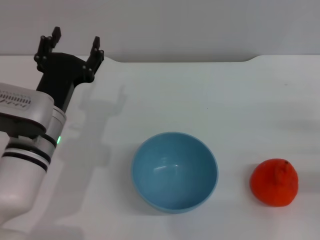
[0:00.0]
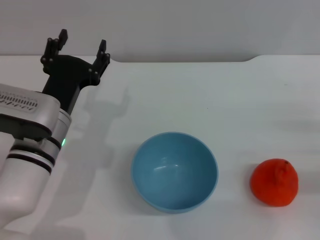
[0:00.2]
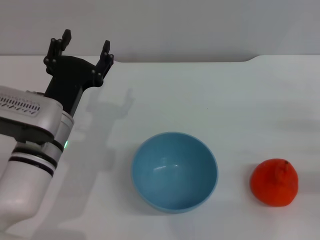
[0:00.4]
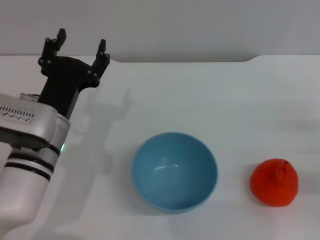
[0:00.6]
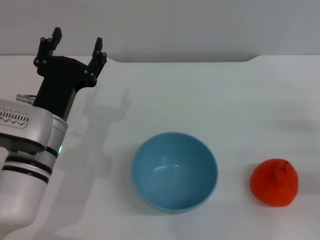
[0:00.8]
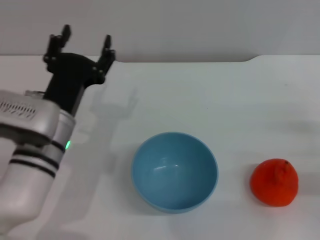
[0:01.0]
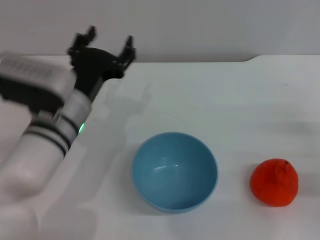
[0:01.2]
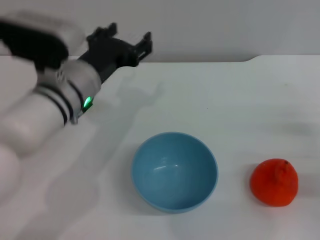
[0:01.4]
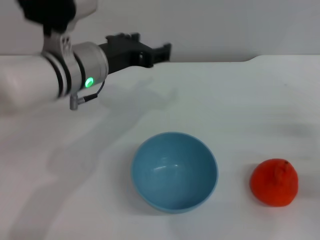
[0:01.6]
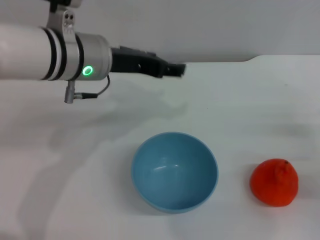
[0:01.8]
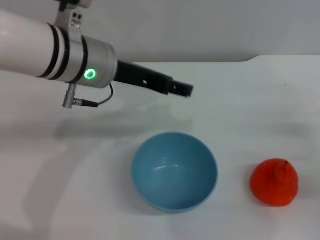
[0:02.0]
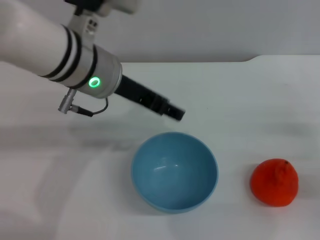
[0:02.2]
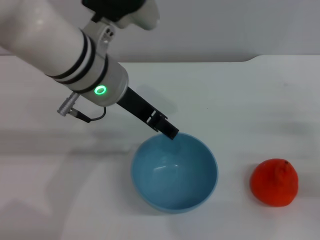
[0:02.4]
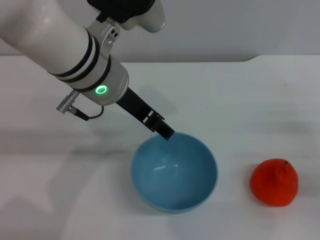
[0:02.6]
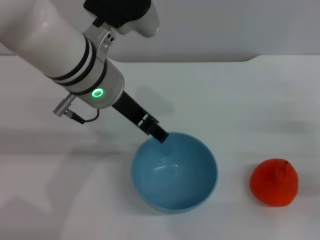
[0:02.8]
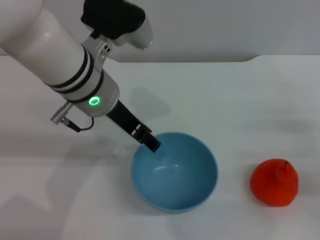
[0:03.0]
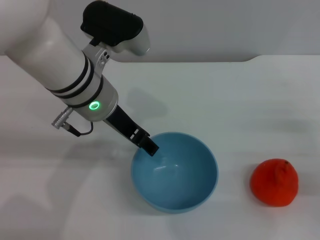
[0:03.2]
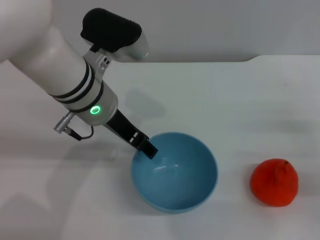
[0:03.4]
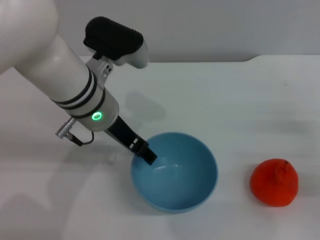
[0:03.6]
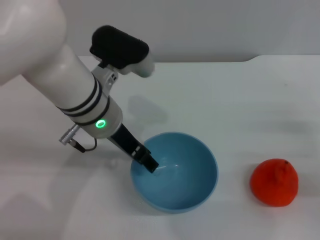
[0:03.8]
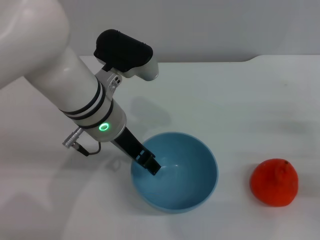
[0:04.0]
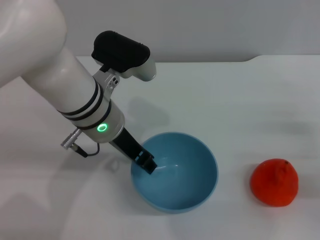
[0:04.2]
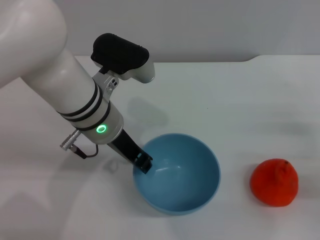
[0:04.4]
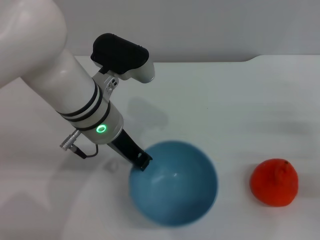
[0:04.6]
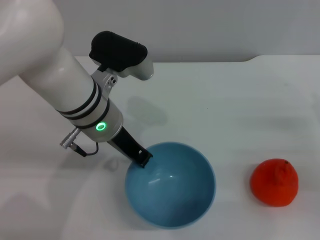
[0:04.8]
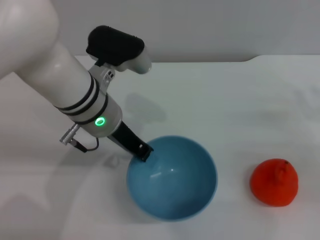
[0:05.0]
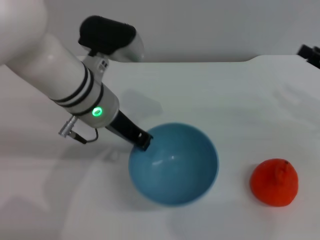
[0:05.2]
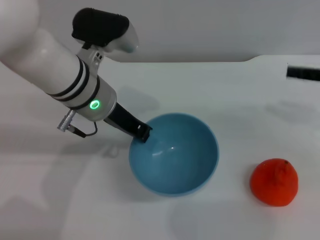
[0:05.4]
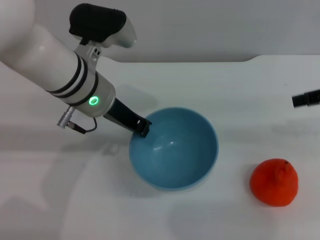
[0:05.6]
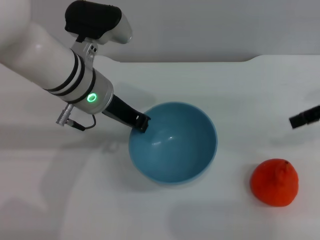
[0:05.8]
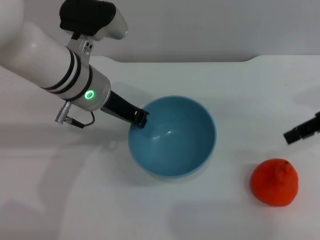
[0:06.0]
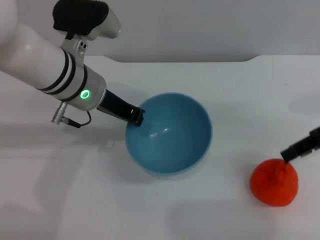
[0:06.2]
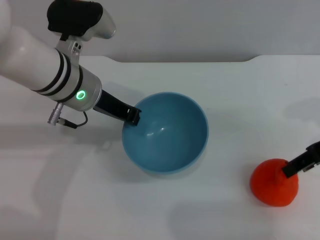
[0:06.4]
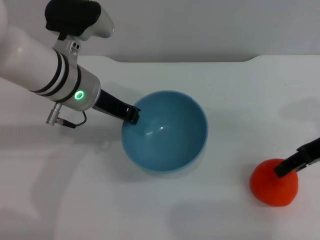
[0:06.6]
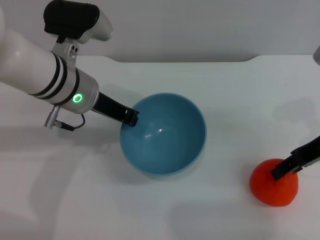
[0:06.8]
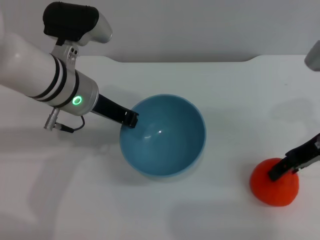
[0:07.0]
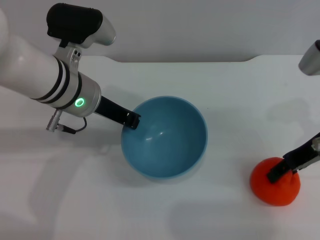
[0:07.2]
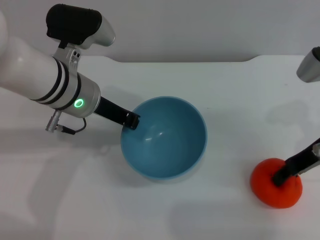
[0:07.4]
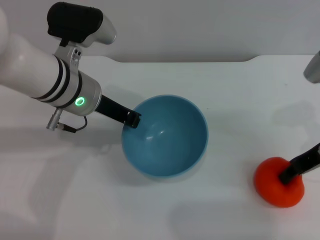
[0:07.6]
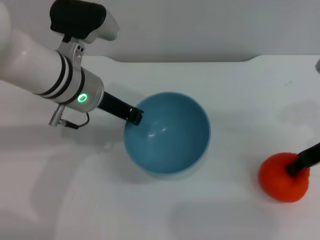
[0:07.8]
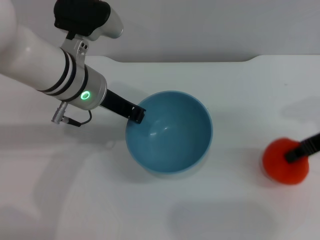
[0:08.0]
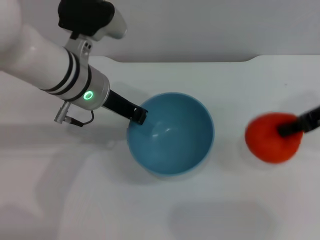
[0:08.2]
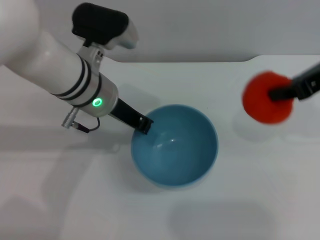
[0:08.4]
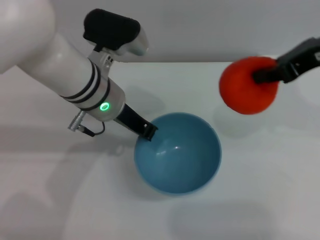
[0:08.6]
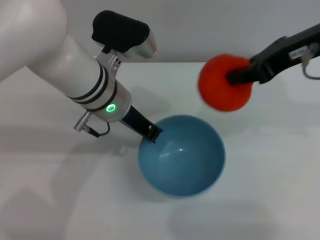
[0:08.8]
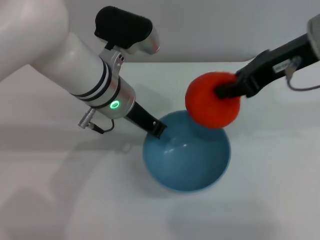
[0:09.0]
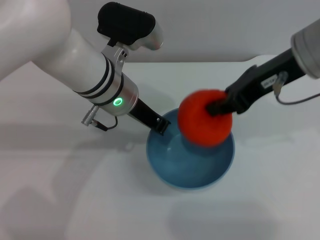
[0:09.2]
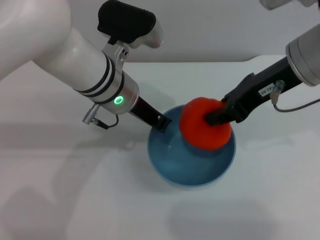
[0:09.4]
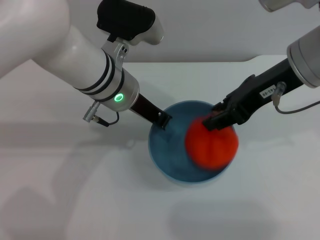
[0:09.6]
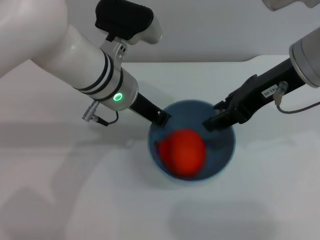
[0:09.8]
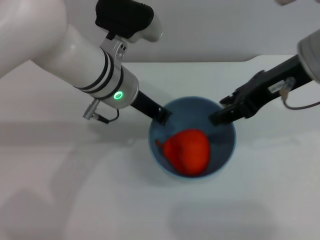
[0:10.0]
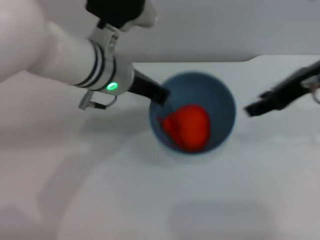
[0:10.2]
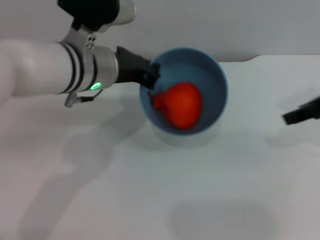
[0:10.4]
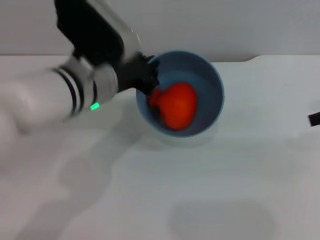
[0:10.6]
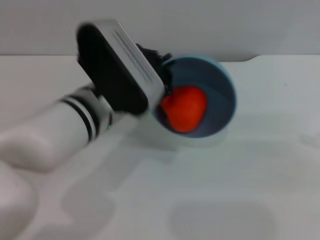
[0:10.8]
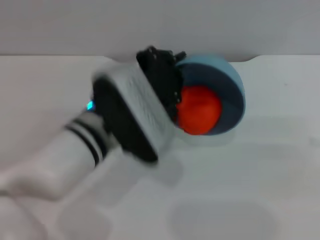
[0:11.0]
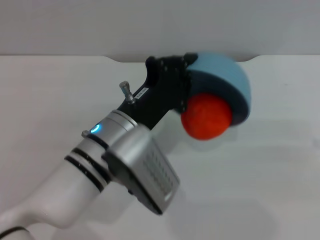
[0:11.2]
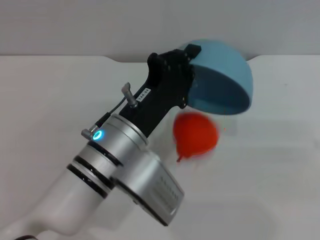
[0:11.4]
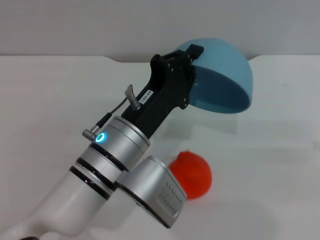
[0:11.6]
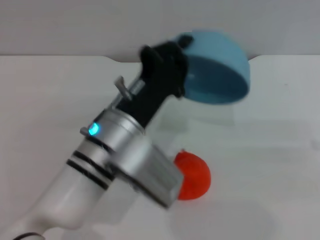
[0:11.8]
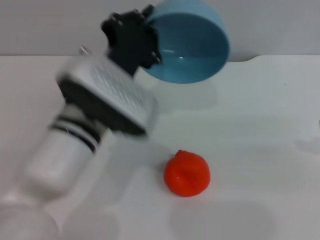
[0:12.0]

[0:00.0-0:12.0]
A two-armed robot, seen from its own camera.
Task of the whole recording: put the orange into the blue bowl and pour it out repeatedly.
Step, 0:00.0 to 0:05.2: Pick up the bowl with the left gripper.
Step, 0:05.6 to 0:08.0: Pick up the orange with the right gripper.
Step, 0:08.4 to 0:09.6: Place the orange into the bowl.
0:00.0 to 0:01.6: The left gripper shifts approximately 10 cm upward and forward.
0:03.0 to 0:04.4: The left gripper closes its fingers.
0:04.4 to 0:06.0: The right gripper shifts approximately 20 cm upward and forward. Meanwhile the left gripper closes its fingers.
0:06.0 to 0:07.6: The right gripper travels downward by roughly 10 cm.
0:07.6 to 0:09.0: The right gripper travels upward and to the left by about 15 cm, and closes up.
0:09.0 to 0:10.4: The right gripper shifts about 5 cm to the right, and opens up.
0:10.4 to 0:12.0: The left gripper moves backward, some 5 cm. Meanwhile the right gripper moves to the right, some 10 cm.

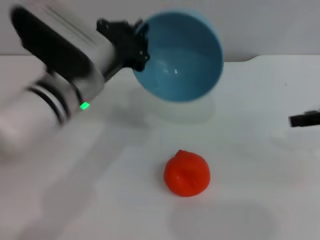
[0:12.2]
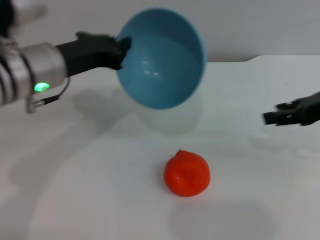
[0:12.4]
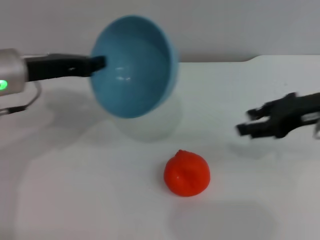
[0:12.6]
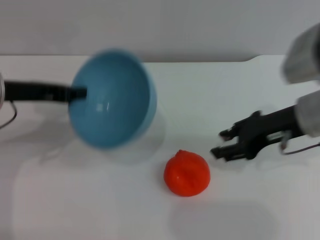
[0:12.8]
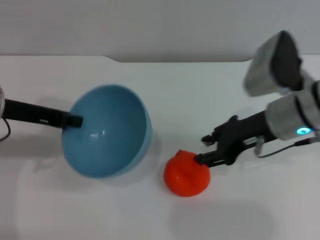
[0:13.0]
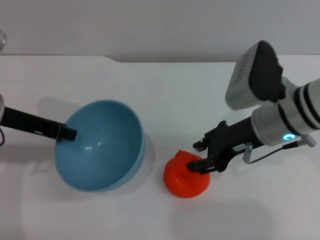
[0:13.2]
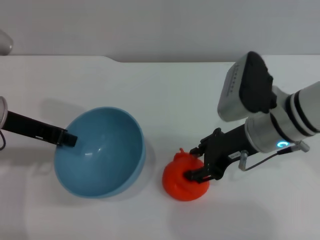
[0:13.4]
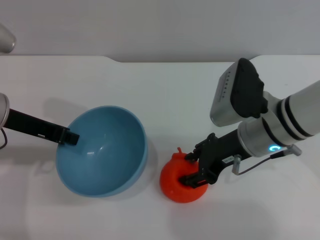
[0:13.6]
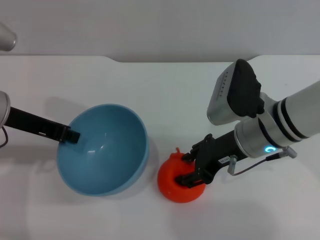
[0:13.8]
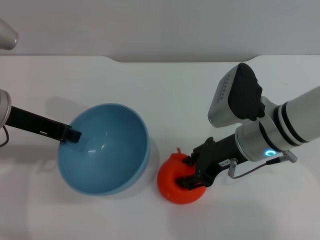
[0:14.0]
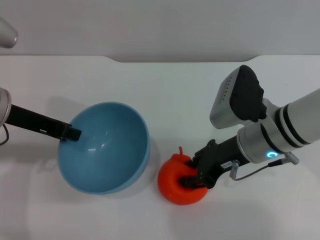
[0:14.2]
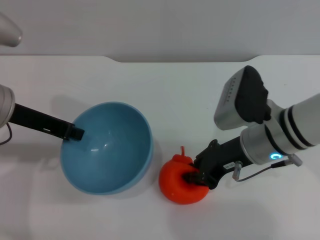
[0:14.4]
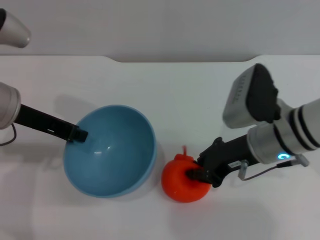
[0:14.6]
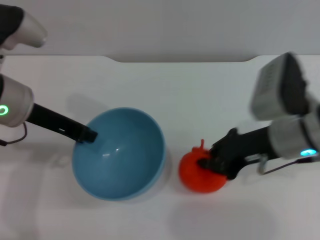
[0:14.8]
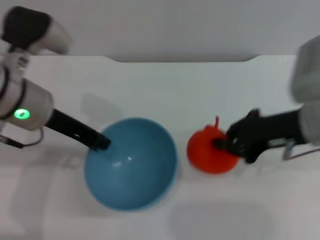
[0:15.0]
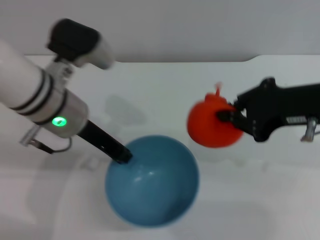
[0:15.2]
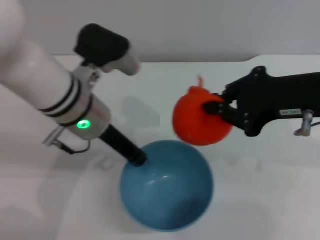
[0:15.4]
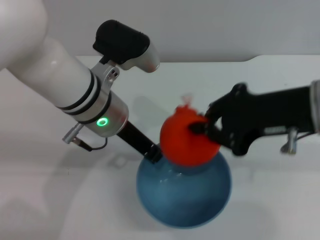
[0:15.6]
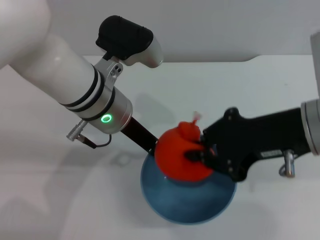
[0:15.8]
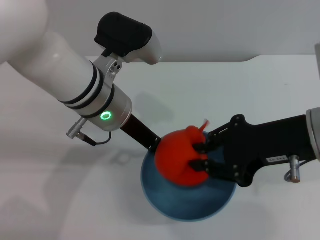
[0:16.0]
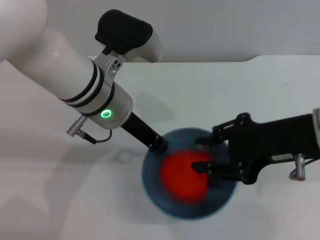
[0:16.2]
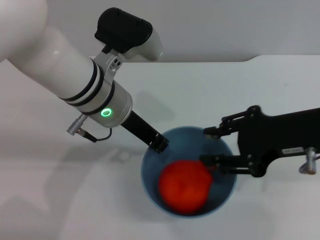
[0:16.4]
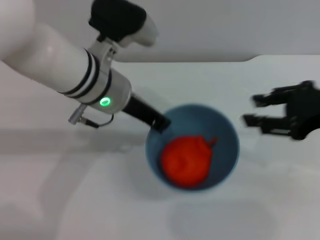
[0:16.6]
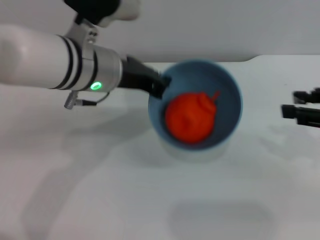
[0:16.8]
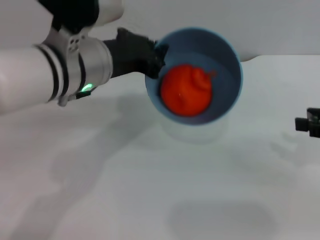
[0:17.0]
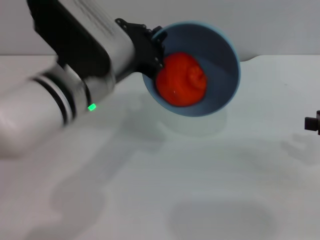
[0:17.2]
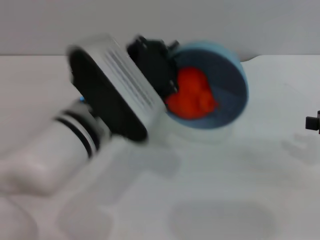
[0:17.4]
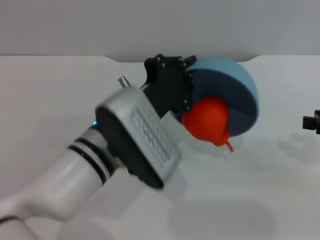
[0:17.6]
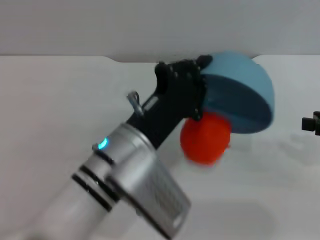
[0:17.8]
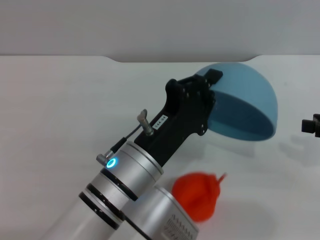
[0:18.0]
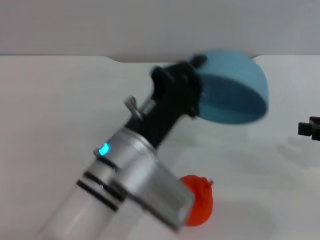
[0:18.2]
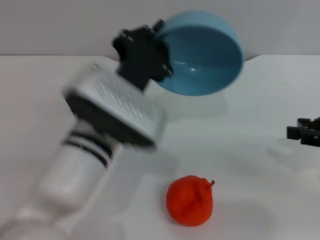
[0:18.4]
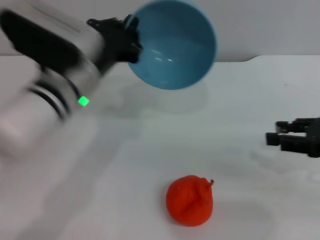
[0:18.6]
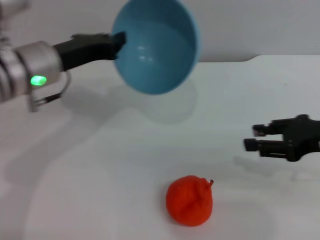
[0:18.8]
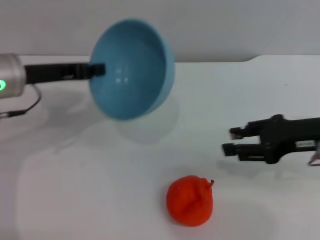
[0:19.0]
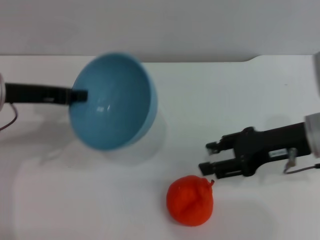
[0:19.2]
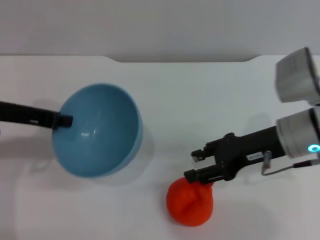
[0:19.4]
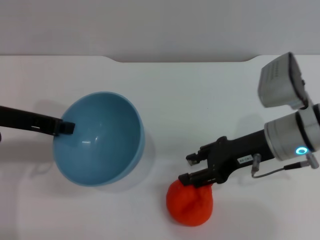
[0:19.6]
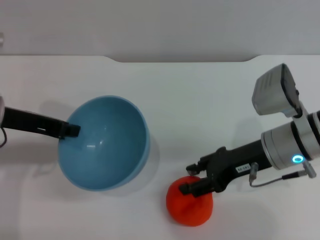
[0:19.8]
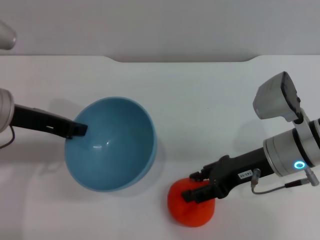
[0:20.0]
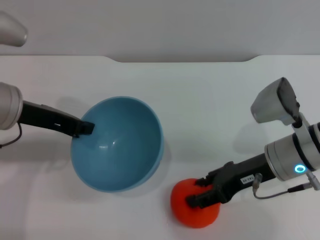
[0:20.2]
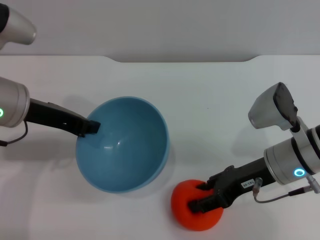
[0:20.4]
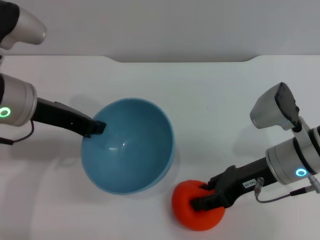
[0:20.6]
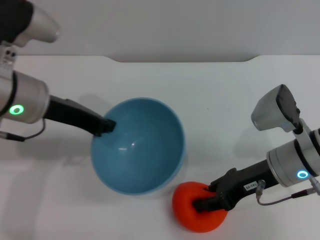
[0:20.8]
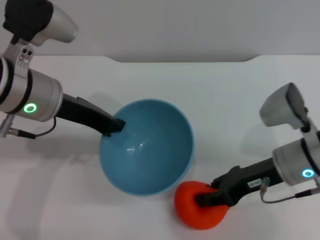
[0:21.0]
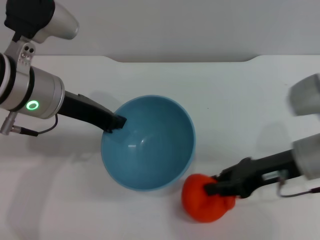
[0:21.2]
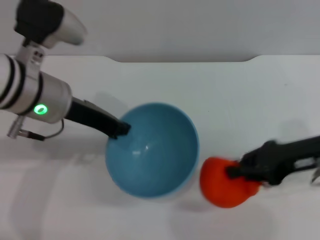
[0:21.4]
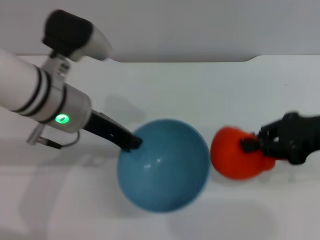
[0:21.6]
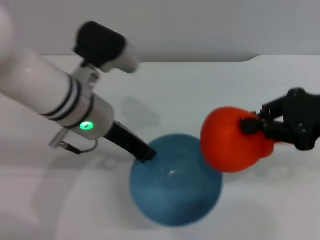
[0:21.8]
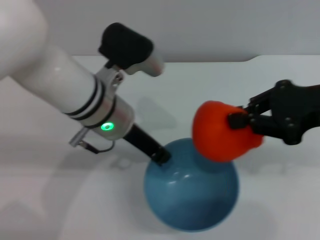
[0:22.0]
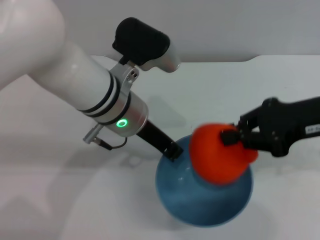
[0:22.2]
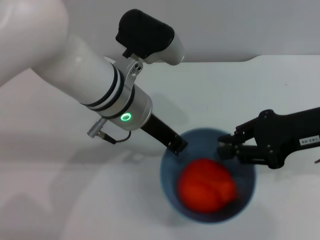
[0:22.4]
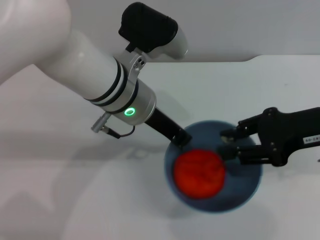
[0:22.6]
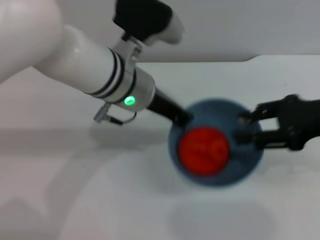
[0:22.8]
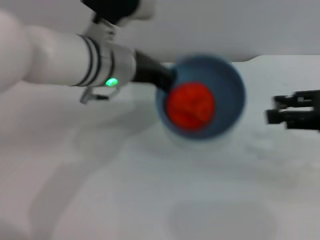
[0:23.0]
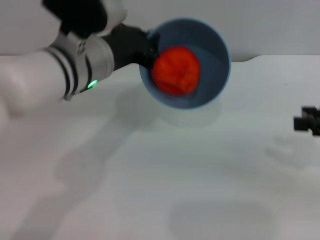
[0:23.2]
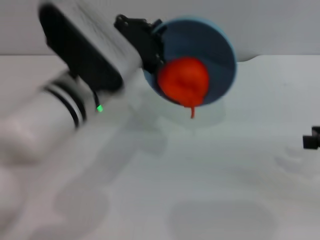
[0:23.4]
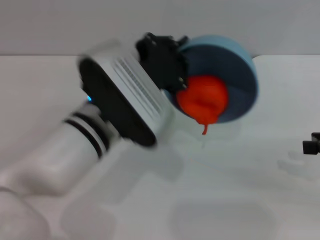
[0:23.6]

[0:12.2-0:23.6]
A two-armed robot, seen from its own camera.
Task of the whole recording: put the orange into the blue bowl and pour it out repeatedly.
Step, 0:12.4 to 0:14.8: Pick up the orange with the right gripper.
Step, 0:15.0 to 0:16.2: Place the orange into the bowl.
Step, 0:16.6 to 0:18.0: Pour the orange out of the bowl.
Step, 0:18.2 to 0:21.4: Pick up the orange with the right gripper.
Step, 0:21.6 to 0:22.8: Place the orange into the bowl.
0:12.2 to 0:13.6: The left gripper is displaced to the left by approximately 10 cm. Meanwhile the right gripper shifts approximately 20 cm to the left and downward.
0:13.6 to 0:15.0: The left gripper travels to the right by approximately 5 cm, while the right gripper is displaced to the right and upward by approximately 10 cm, and closes.
0:15.0 to 0:16.4: The left gripper heads to the right, covering roughly 10 cm; the right gripper opens.
0:16.4 to 0:17.8: The left gripper goes roughly 10 cm backward and downward; the right gripper heads to the right, covering some 15 cm.
0:17.8 to 0:19.4: Both grippers move to the left and forward, roughly 20 cm.
0:19.4 to 0:20.8: The left gripper shifts approximately 5 cm to the right.
0:20.8 to 0:22.2: The left gripper heads to the right, covering roughly 10 cm, while the right gripper goes roughly 15 cm upward and to the right, and closes its fingers.
0:22.2 to 0:23.6: The right gripper goes about 10 cm to the right and backward, and opens its fingers, while the left gripper moves backward, about 5 cm.
